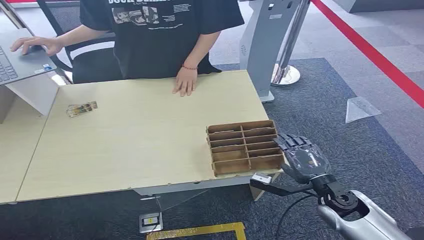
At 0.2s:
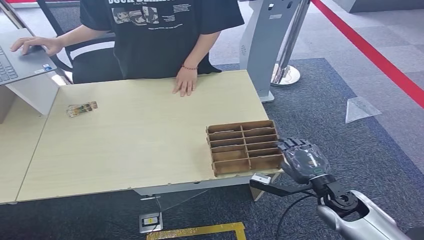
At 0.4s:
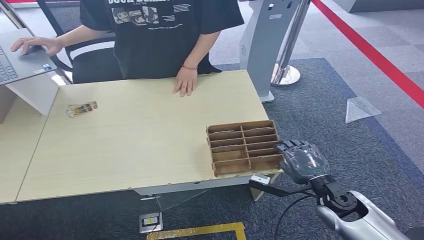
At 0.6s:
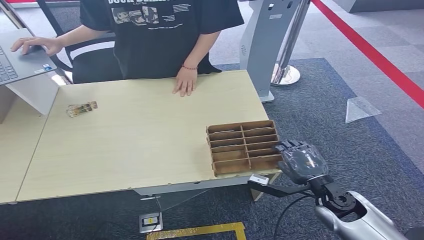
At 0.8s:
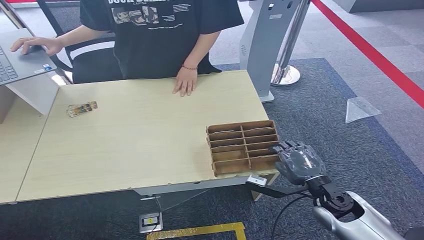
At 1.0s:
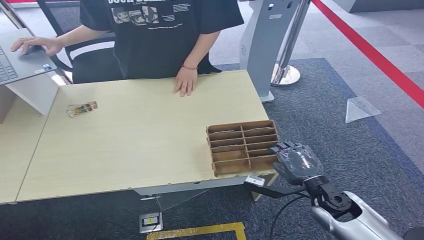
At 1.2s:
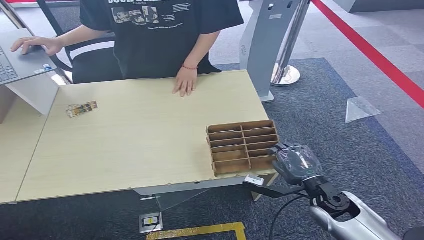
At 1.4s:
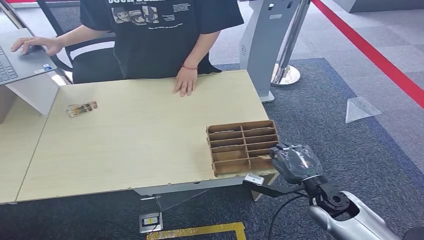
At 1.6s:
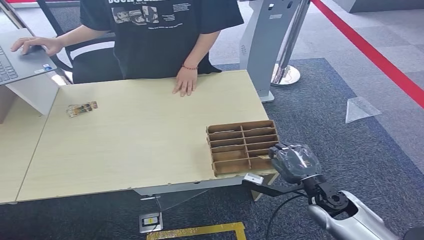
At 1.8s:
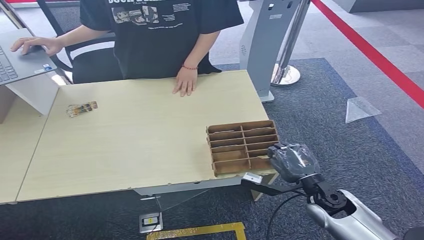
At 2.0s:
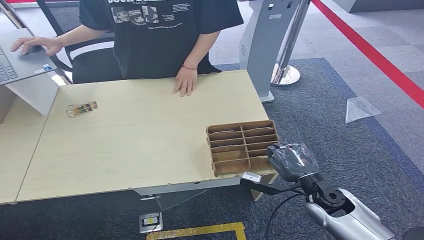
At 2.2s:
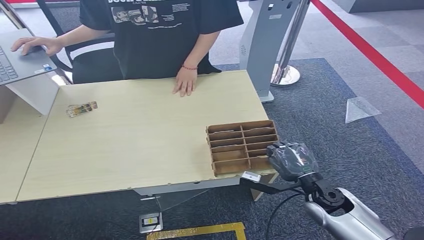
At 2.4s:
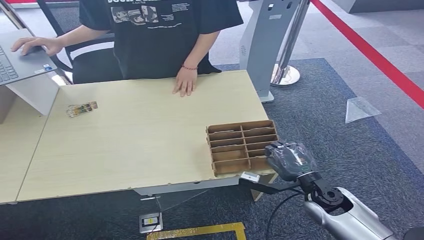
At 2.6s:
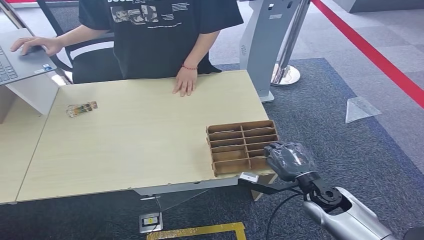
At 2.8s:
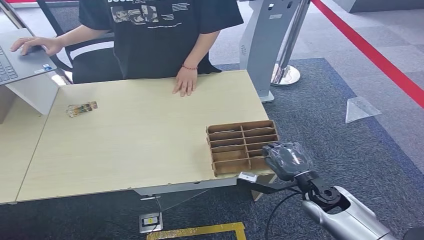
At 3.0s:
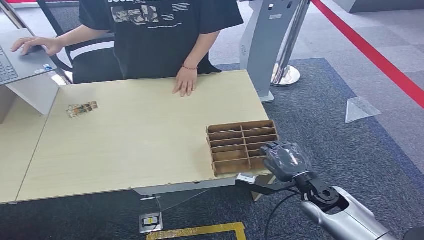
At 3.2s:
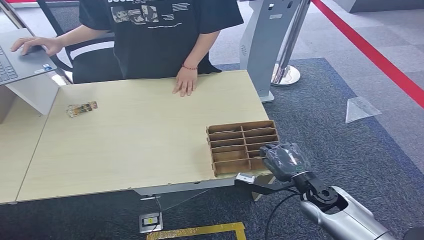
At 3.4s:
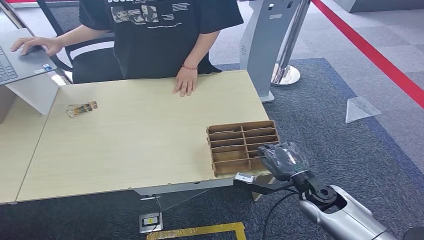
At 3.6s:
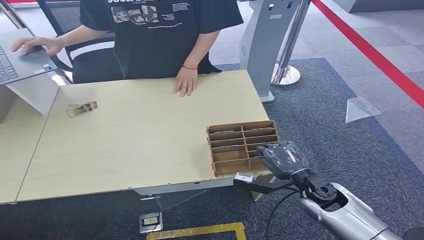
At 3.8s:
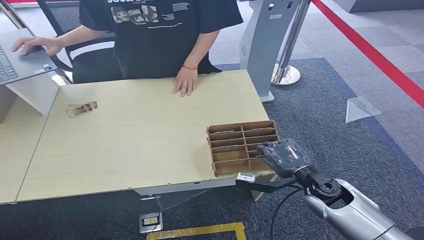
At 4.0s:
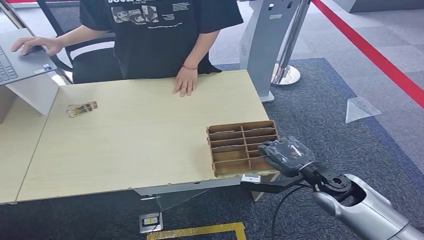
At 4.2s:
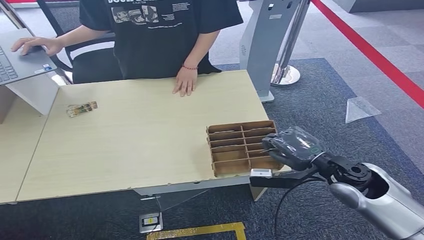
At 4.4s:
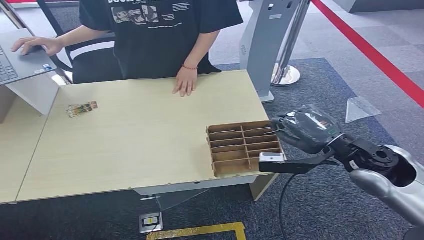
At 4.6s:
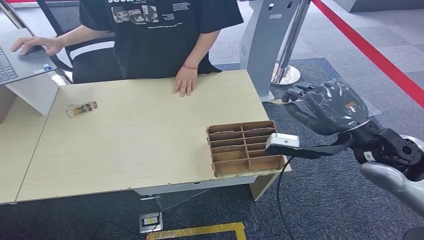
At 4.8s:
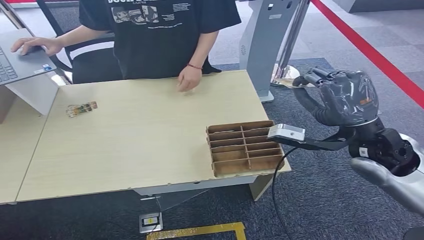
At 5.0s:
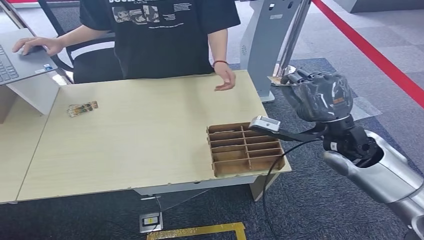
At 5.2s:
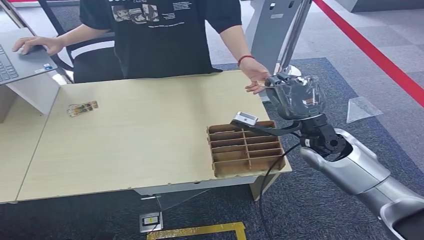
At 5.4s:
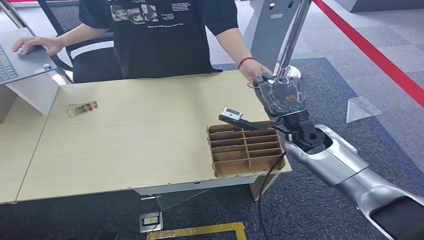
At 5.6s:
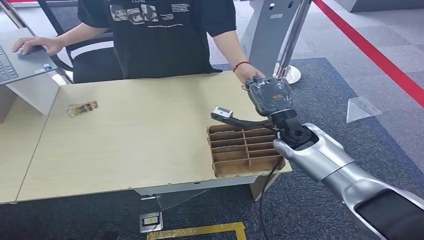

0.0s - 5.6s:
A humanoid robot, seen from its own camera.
Step, 0.0s - 4.4s: Pick up the room card from the card holder.
Step, 4.6s - 5.6s: Hand the room card to the target.
1.4s - 2.8s: The hands stay close to where they were, moving slightly.
2.8s - 4.2s: The right hand is displaced upward by some 20 cm.
4.2s - 5.6s: The right hand shifts some 20 cm forward, downward and to the left.
